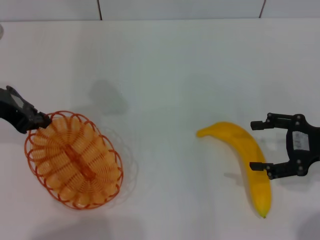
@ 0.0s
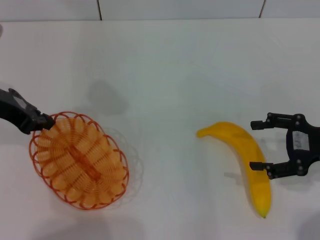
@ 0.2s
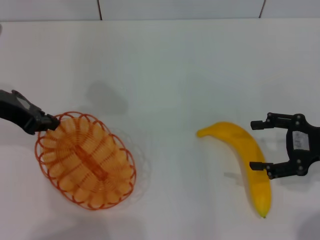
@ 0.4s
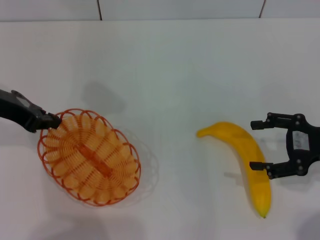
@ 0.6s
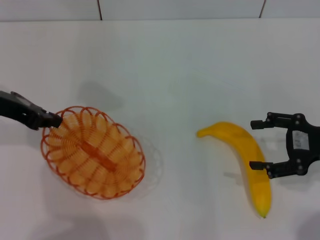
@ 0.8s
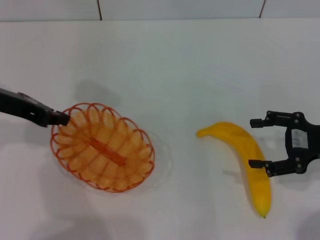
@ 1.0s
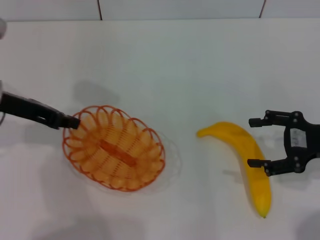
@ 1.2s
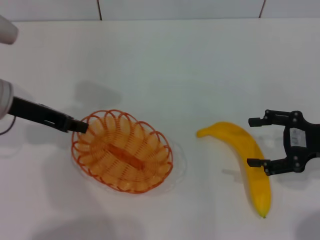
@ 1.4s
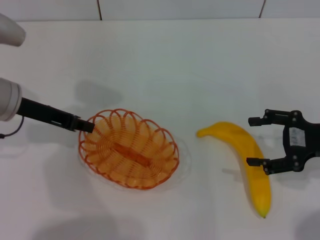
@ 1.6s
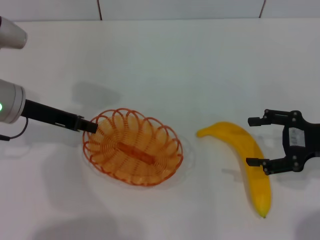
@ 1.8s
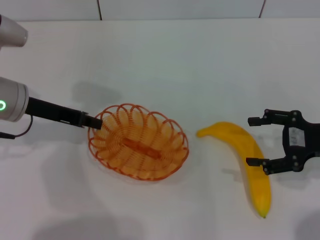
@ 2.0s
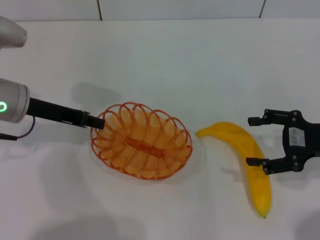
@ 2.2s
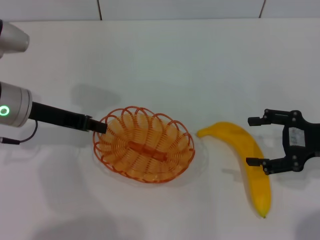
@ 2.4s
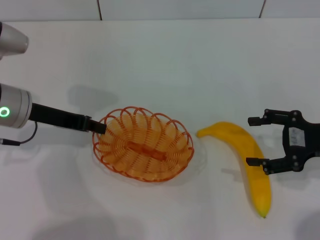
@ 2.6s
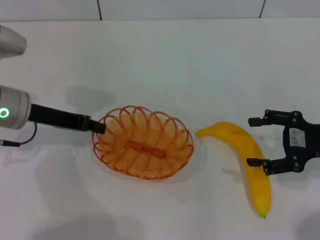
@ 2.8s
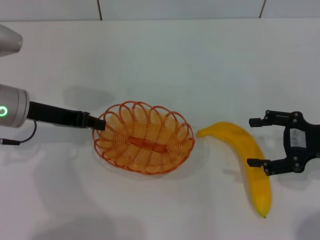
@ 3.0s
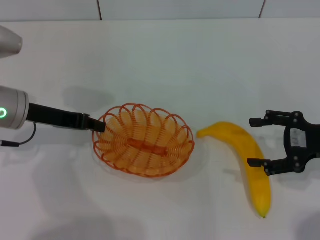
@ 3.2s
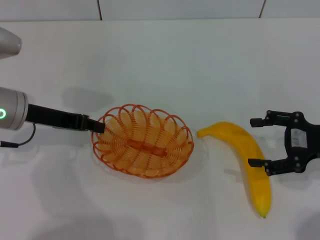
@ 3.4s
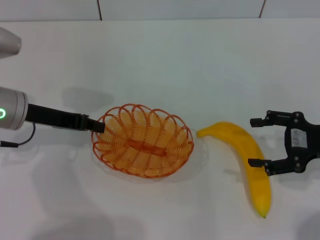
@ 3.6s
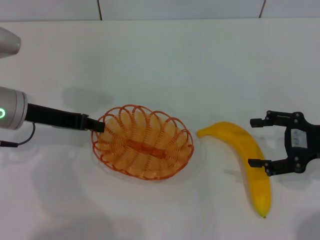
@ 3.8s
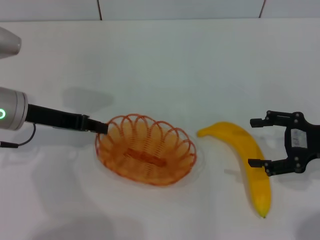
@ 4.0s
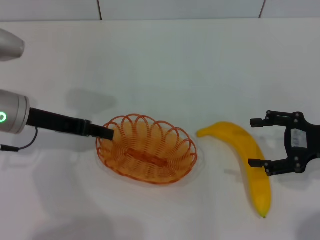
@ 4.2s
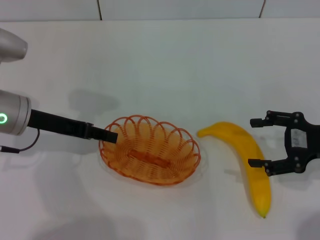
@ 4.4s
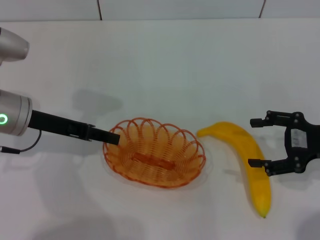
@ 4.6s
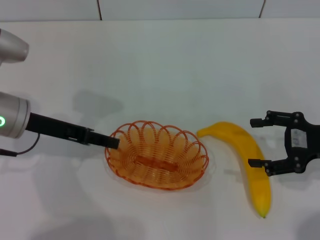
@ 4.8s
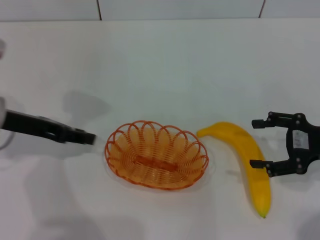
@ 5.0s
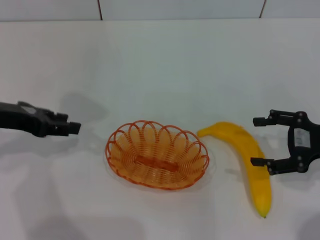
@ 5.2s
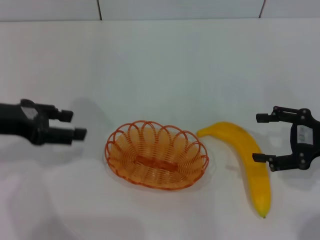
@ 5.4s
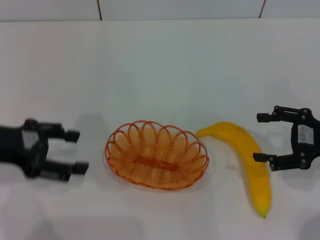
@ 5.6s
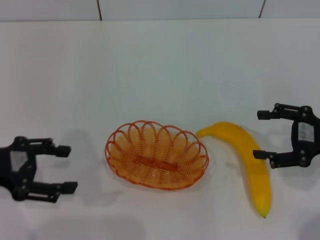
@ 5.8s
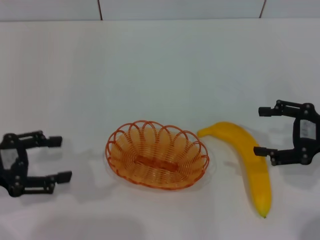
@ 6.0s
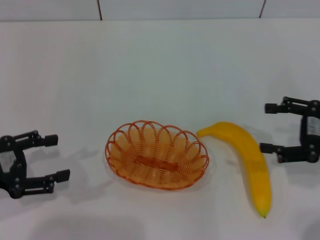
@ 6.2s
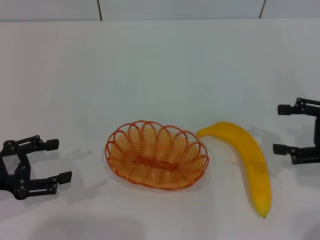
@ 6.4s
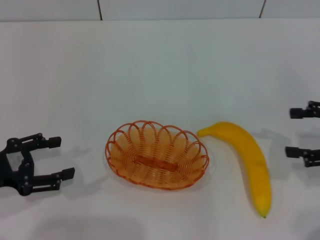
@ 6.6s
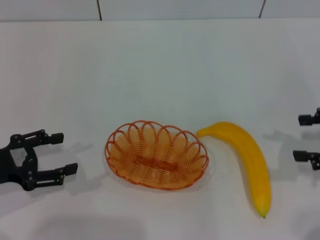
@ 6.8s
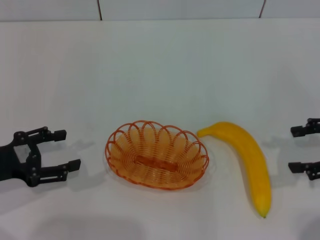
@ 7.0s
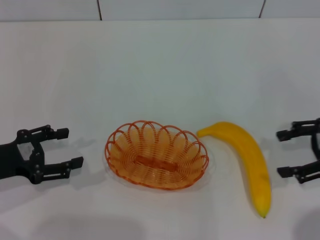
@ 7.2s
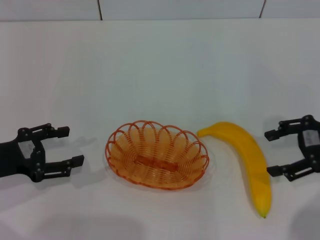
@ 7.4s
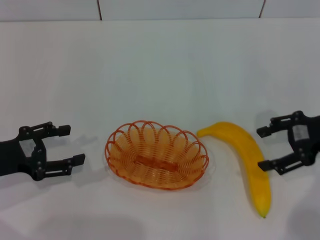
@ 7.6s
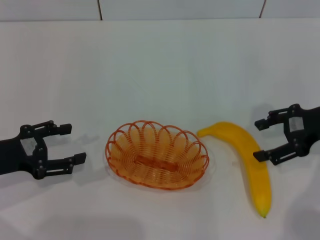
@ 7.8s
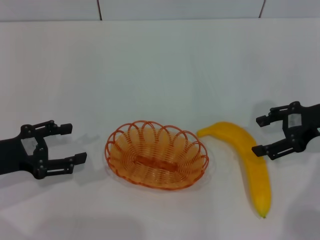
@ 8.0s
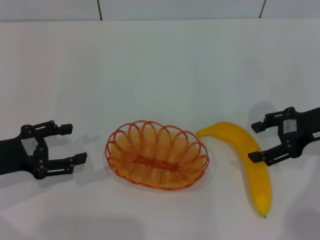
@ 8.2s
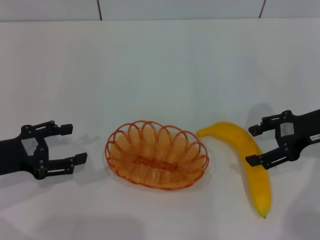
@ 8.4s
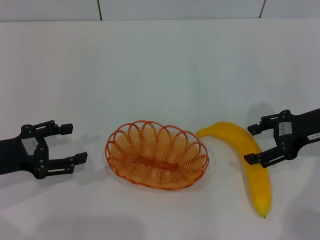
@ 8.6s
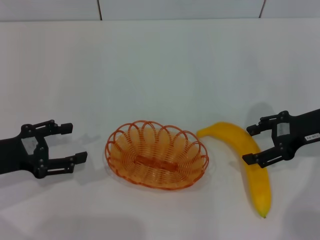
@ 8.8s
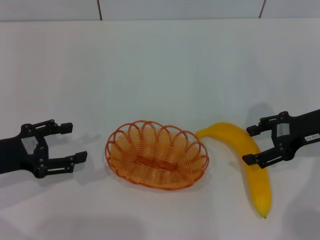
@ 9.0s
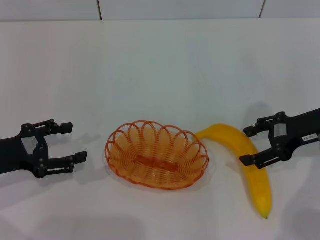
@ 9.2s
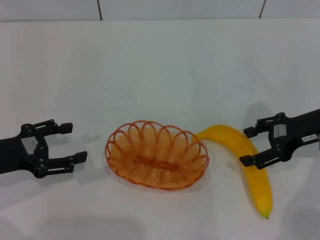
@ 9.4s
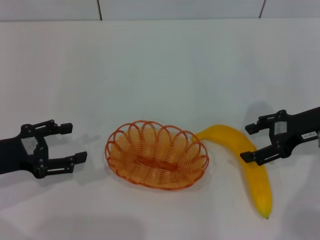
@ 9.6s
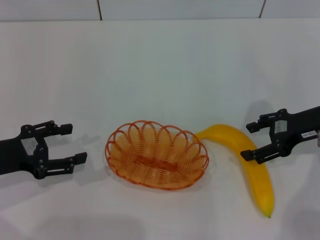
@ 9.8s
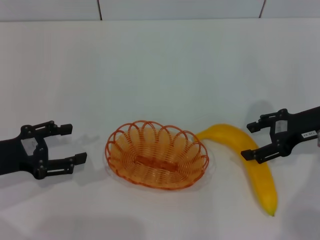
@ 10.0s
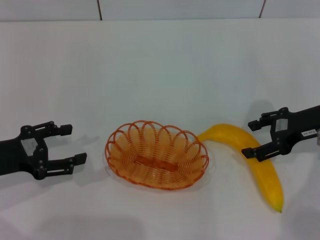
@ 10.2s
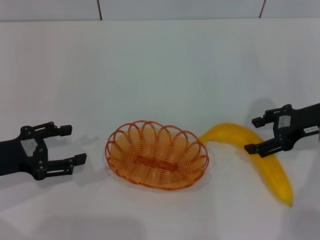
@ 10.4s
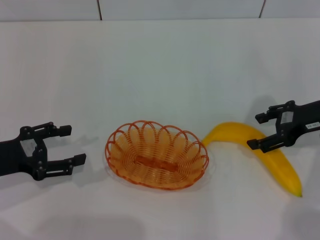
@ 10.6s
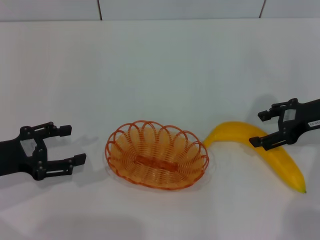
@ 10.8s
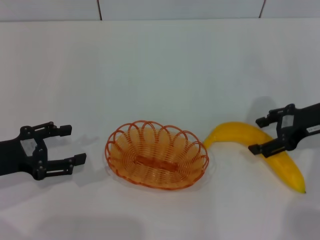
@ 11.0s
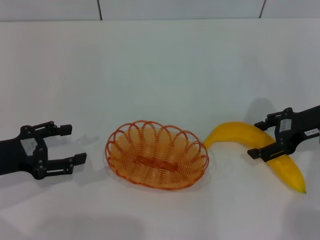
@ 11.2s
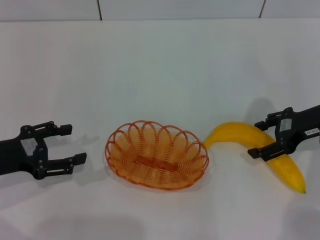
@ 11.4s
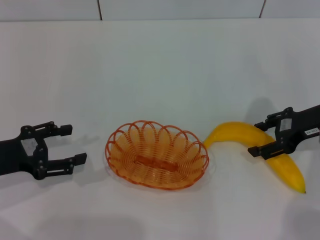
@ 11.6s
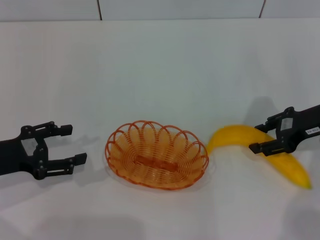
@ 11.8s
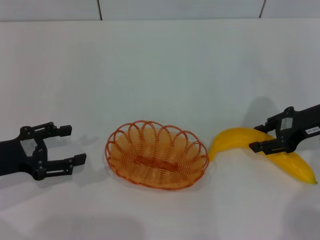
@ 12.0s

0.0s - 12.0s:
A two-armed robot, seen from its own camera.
Step, 0.4s - 5.8s: Place the basket in the center of view with the left gripper.
0.0s - 1.6s: The left gripper shifts roughly 5 cm downward.
1.6s - 3.0s: The grippers move only a little.
3.0s - 4.4s: The left gripper opens.
4.4s - 6.0s: The left gripper travels backward and to the left by approximately 15 cm, and opens its fingers.
6.0s - 7.6s: The right gripper ends up some 5 cm from where it was.
7.6s - 10.4s: The grippers make only small movements.
10.4s - 12.0s: The right gripper closes its fingers.

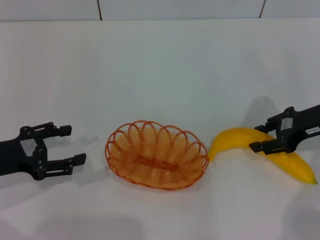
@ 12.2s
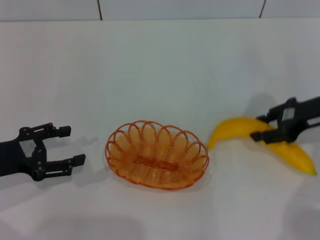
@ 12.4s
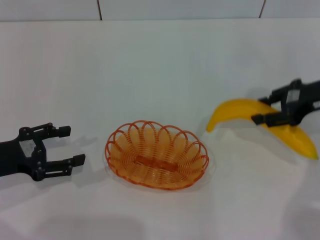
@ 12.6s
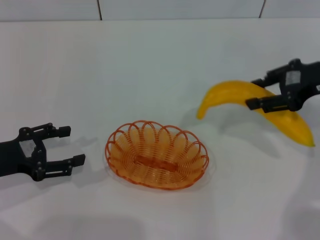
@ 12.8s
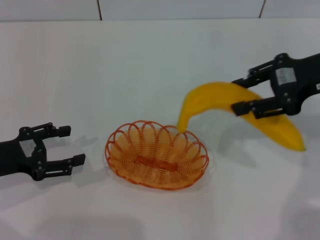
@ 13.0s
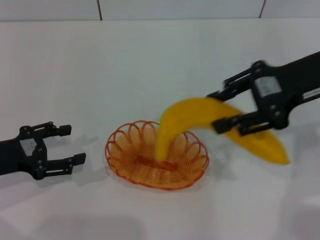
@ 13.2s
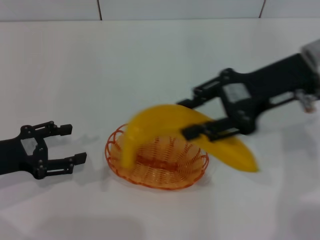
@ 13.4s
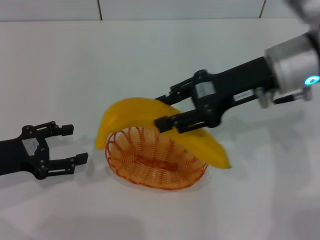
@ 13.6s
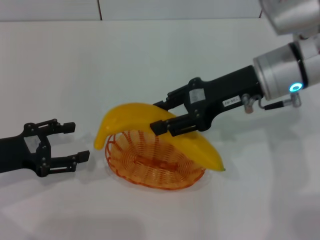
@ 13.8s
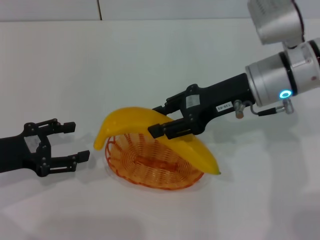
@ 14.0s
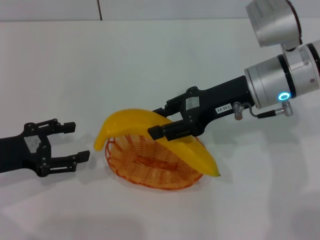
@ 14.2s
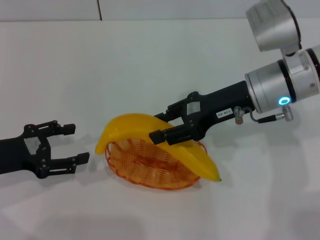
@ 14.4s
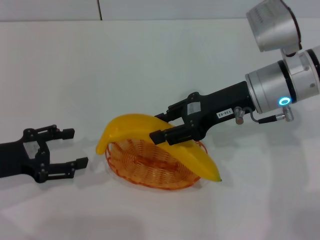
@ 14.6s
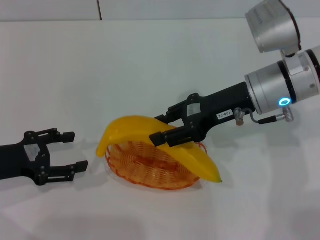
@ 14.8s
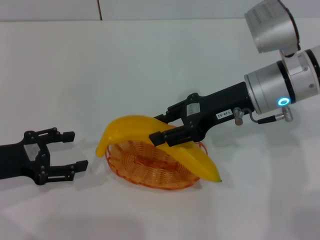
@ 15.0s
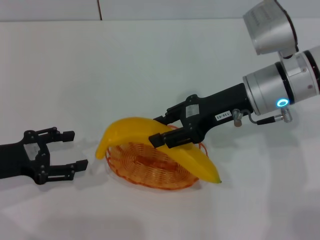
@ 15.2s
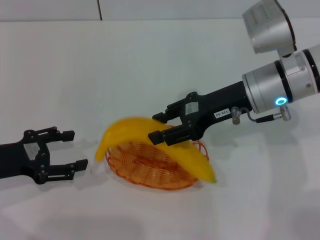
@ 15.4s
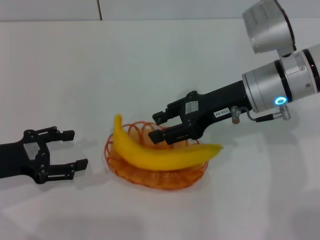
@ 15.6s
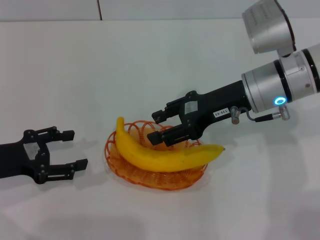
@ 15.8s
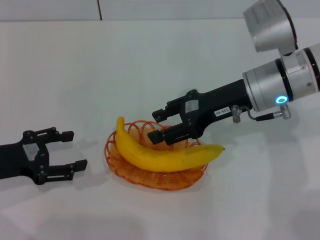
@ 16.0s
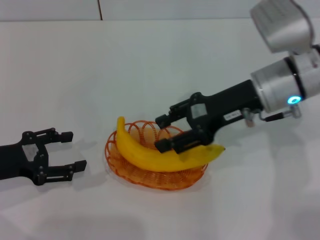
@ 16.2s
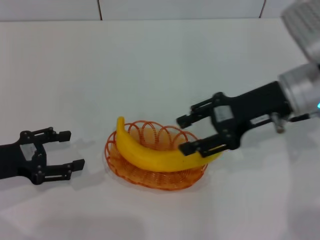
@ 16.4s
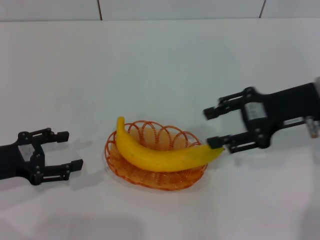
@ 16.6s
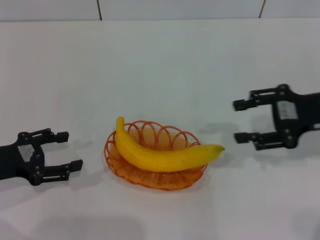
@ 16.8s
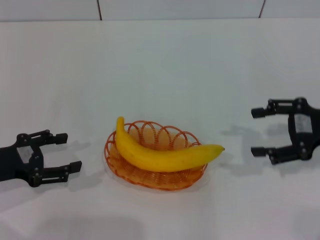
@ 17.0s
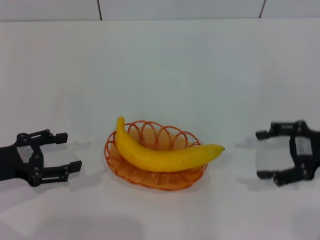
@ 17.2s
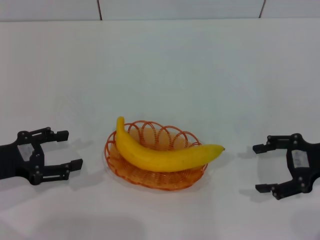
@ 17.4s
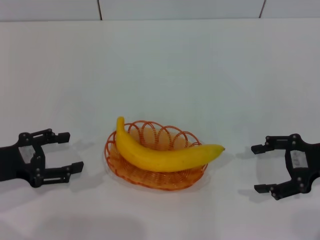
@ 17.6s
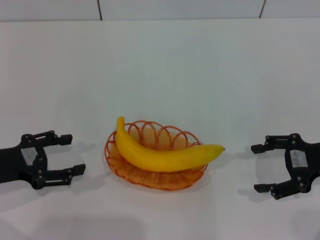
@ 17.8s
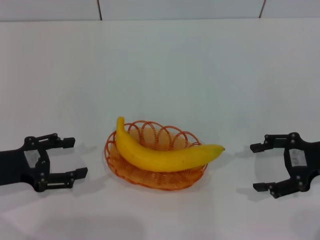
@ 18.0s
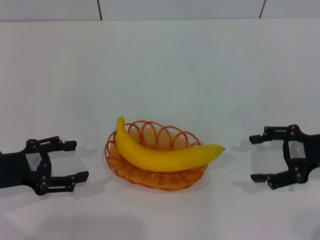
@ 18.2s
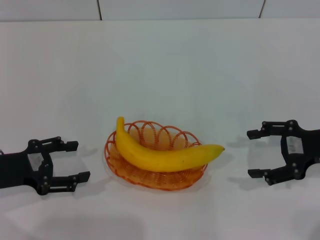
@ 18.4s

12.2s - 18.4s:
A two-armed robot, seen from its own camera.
Step, 13.2s - 15.6s: Place the banana into the basket with the right gripper.
12.2s - 13.8s: The right gripper heads to the left and upward, covering about 15 cm.
13.8s - 15.4s: The grippers move only a little.
15.4s - 16.8s: The right gripper is displaced to the right by some 15 cm, and opens its fingers.
16.8s - 18.4s: The right gripper shifts by about 5 cm, and opens up.

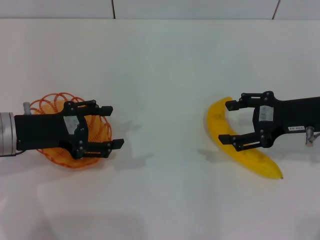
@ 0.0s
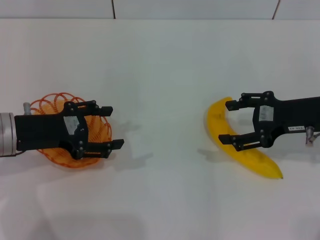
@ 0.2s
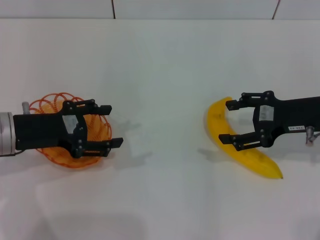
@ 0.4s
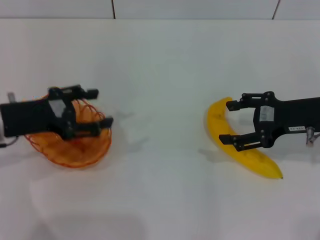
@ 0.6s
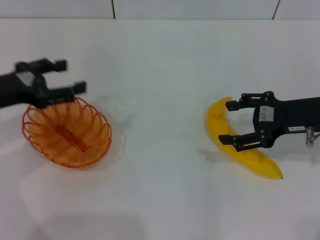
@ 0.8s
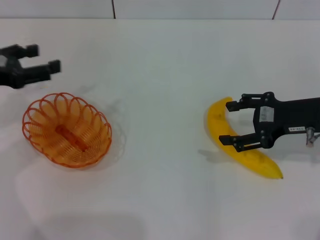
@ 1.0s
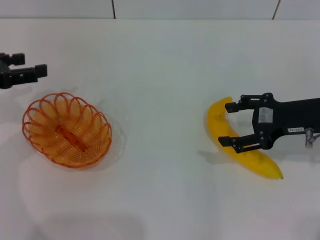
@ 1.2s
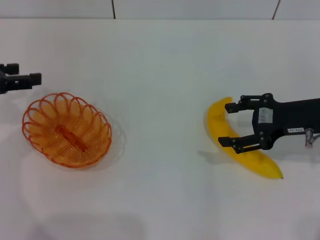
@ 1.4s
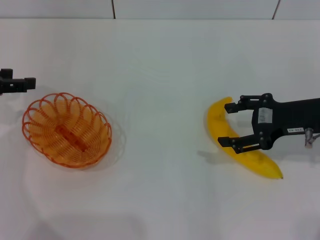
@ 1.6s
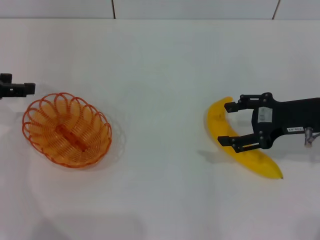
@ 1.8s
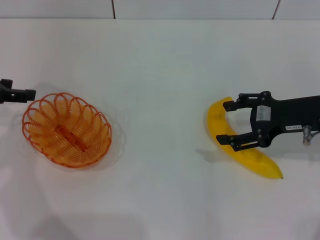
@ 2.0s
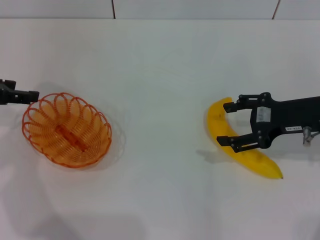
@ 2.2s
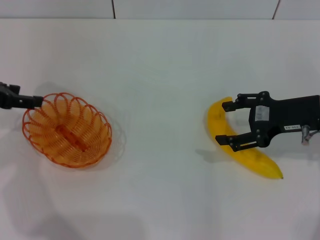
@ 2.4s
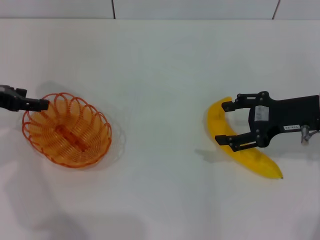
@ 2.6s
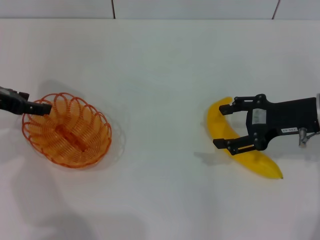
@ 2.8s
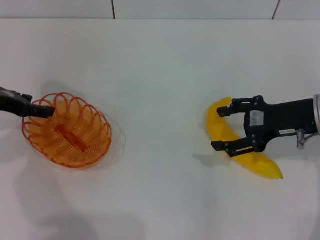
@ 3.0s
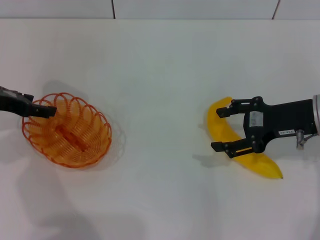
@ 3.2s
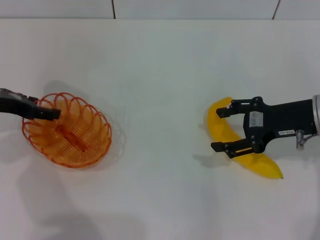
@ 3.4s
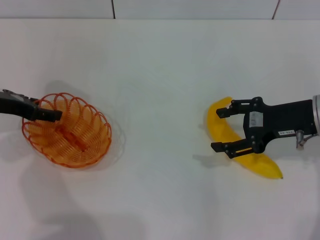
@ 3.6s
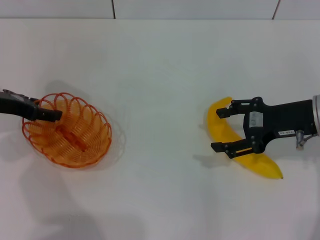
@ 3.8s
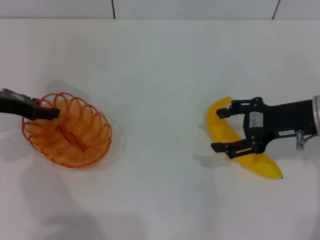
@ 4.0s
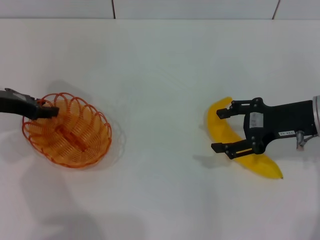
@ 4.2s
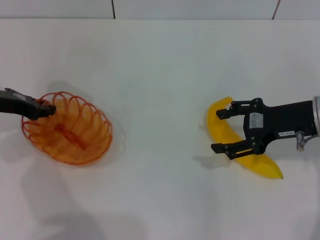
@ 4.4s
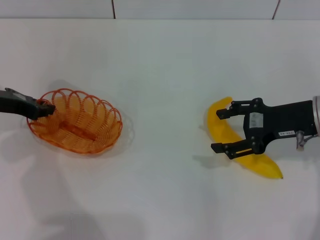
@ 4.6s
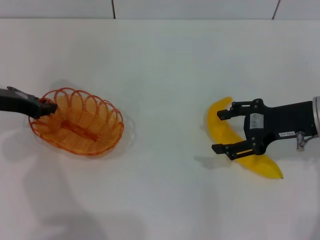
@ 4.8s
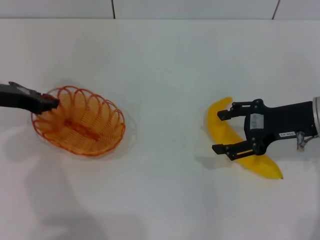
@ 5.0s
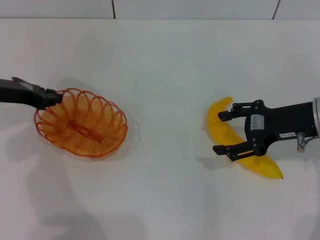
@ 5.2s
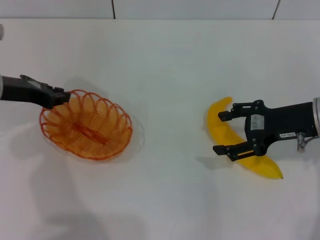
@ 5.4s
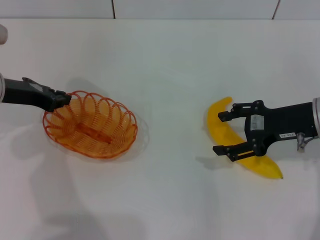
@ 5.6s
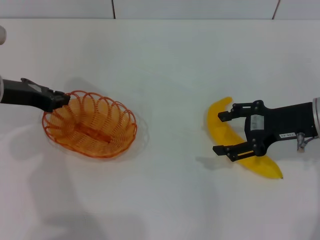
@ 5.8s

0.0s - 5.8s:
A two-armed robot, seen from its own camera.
0.0s - 1.4s: The left gripper moves to the left and upward, some 10 cm.
1.4s - 2.8s: There are only small adjustments of the grippers.
2.8s - 4.4s: The left gripper closes its fingers.
4.4s - 5.8s: The left gripper closes up.
